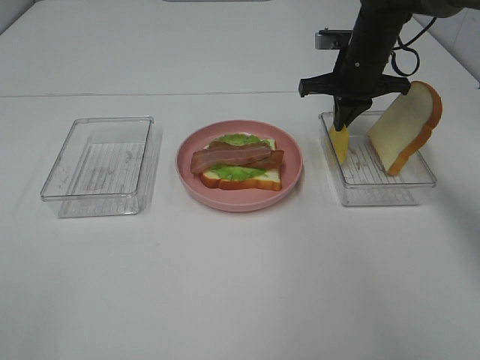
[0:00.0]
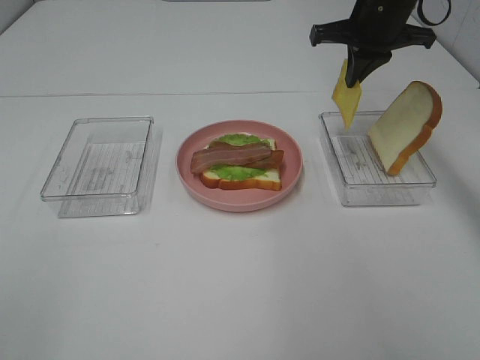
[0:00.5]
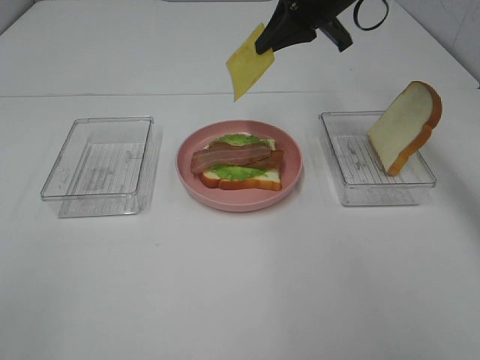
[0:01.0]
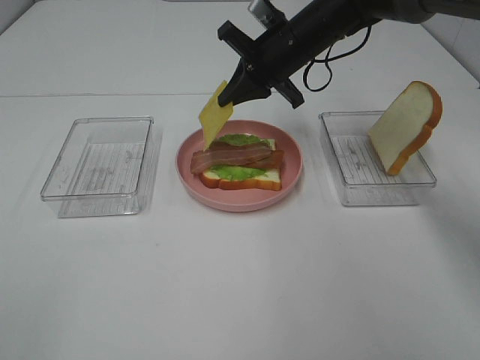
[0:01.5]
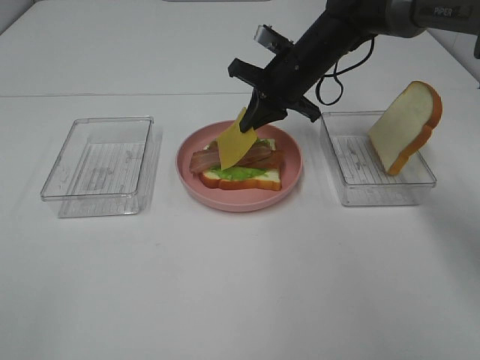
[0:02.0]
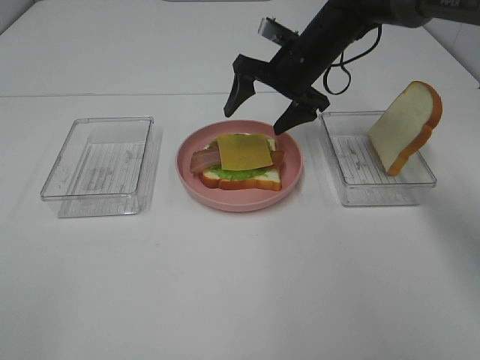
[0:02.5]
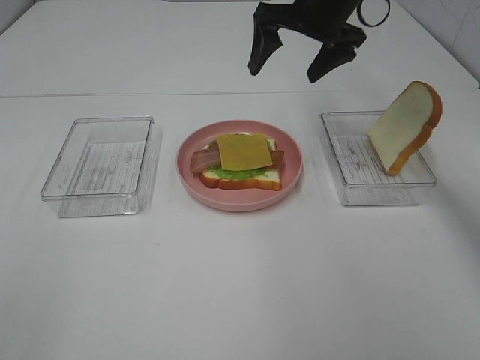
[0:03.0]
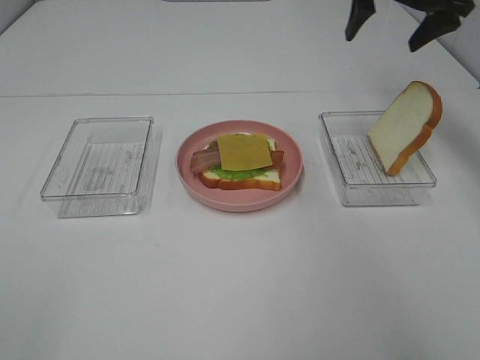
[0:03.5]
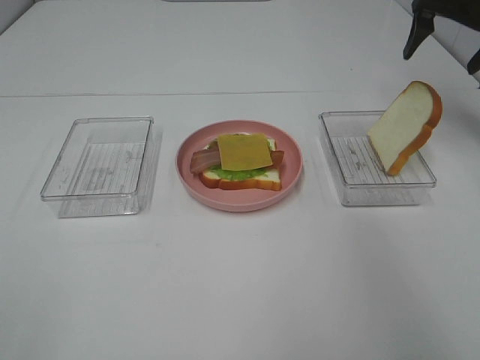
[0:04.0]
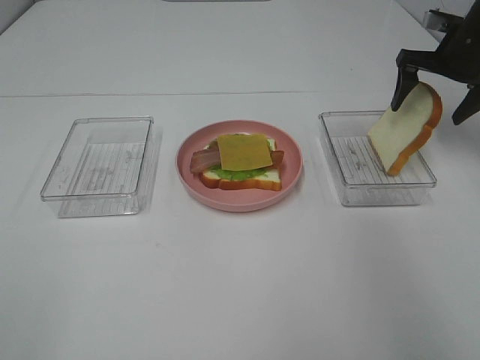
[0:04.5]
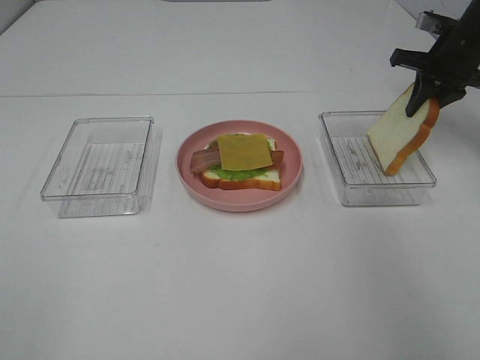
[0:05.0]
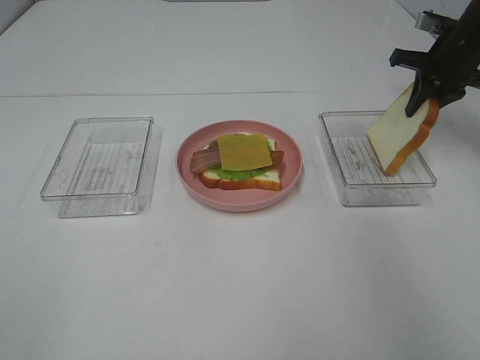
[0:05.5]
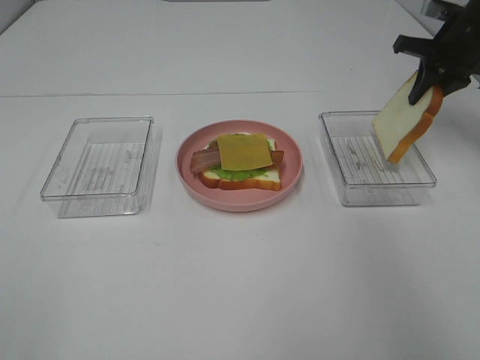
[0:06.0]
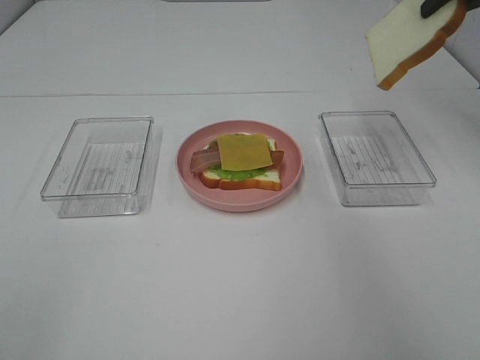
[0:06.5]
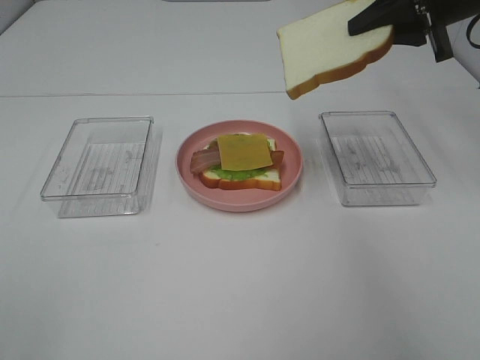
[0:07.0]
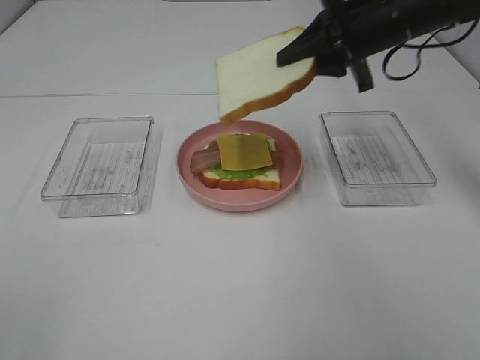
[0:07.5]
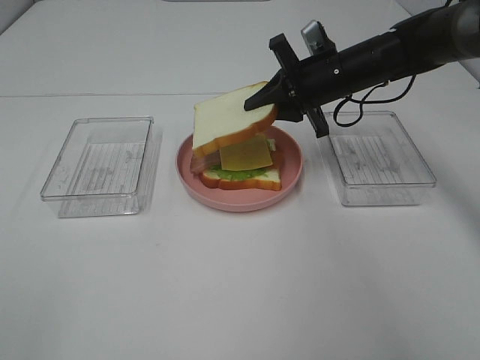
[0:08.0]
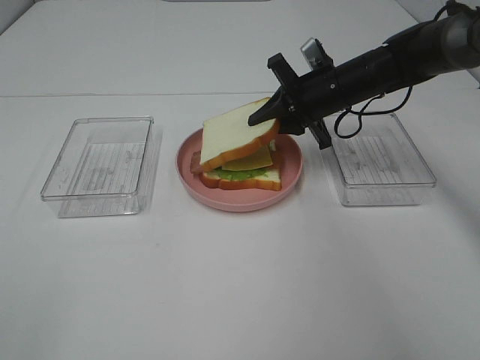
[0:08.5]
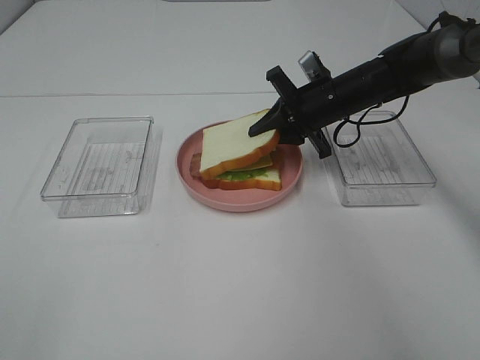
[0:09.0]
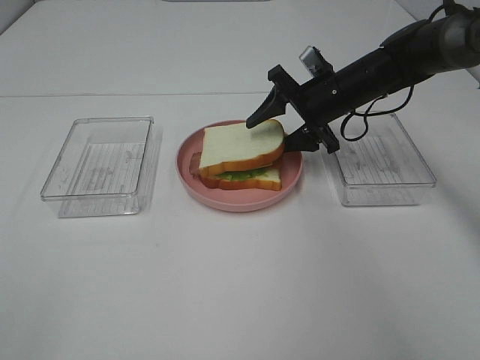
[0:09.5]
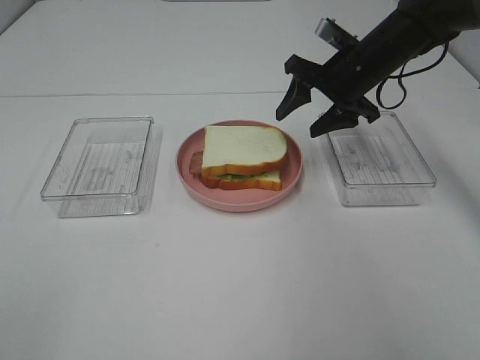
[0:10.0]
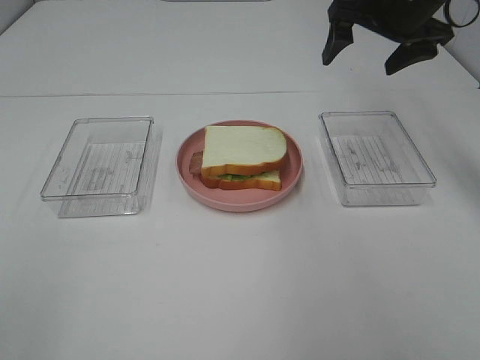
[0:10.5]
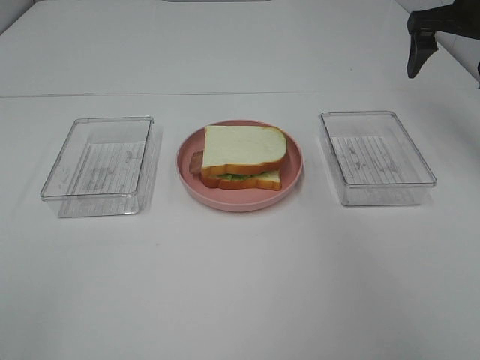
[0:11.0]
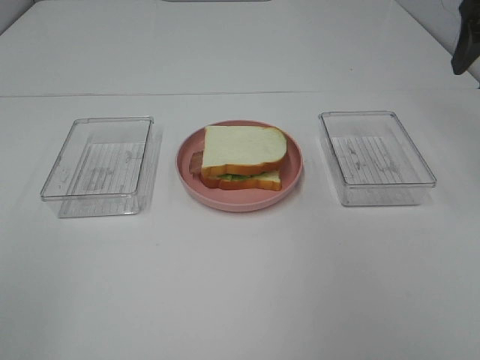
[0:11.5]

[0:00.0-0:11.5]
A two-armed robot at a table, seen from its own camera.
Task of the whole recording: Make sandwiches.
Step, 0:00.0 to 0:02.5: Right hand:place the cheese slice on top of the bacon.
Step, 0:03.0 to 0:05.5: Right hand:grab the bread slice.
Step, 0:06.0 to 0:09.5: Right hand:place the bread slice on the cheese slice.
0:00.0 to 0:02.0: The right gripper is displaced to the left by about 10 cm, and goes upward and returns, approximately 10 cm each way.
0:02.0 to 0:04.0: The right gripper is displaced to the right and upward by about 25 cm, and opens its fingers.
0:04.0 to 0:06.0: The right gripper closes its fingers.
0:06.0 to 0:07.5: The right gripper is displaced to the left and backward by approximately 15 cm.
0:07.5 to 0:09.5: The right gripper travels downward by approximately 10 cm, and opens up.
0:09.5 to 0:11.5: The right gripper shifts some 30 cm upward, to the right and backward.

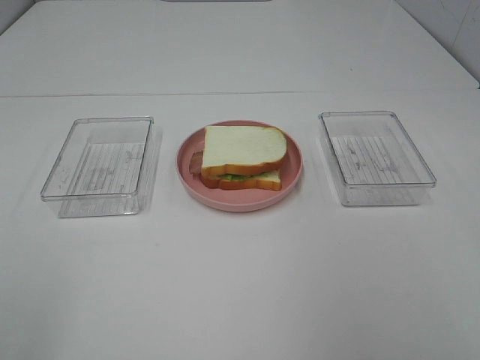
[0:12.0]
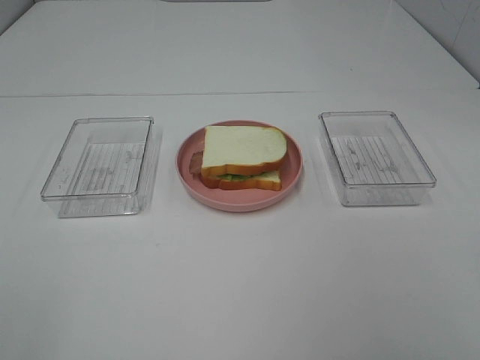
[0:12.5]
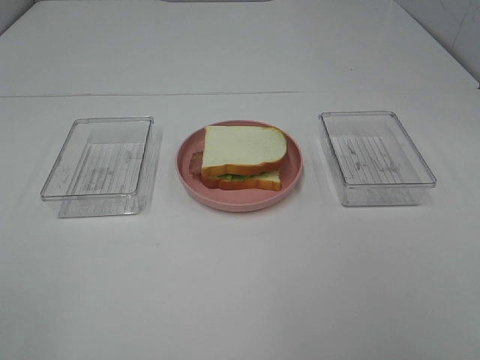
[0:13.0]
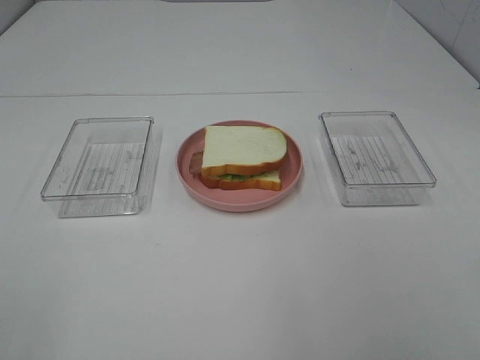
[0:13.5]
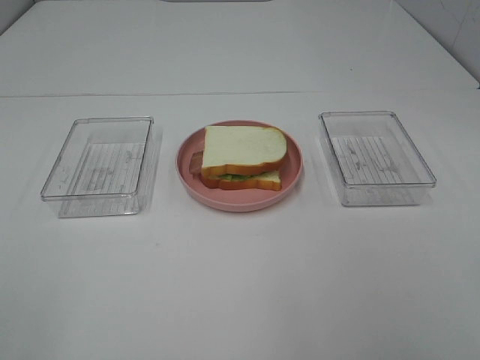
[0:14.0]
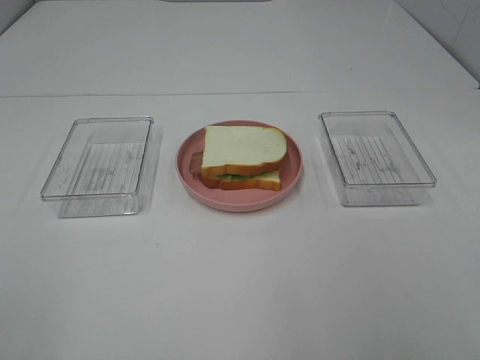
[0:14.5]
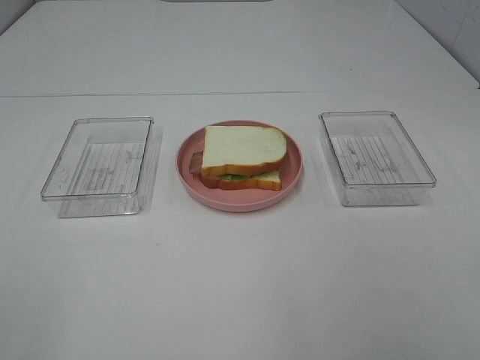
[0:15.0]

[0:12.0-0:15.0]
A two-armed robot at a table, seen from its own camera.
Task of the whole recording: Make sandwiches.
0:13.5 to 0:15.0: Both grippers stay about where they are.

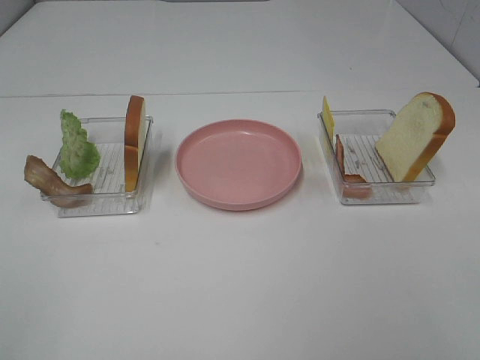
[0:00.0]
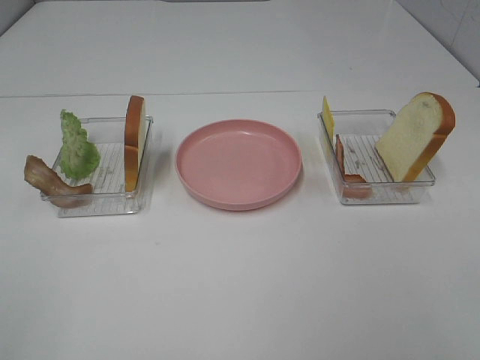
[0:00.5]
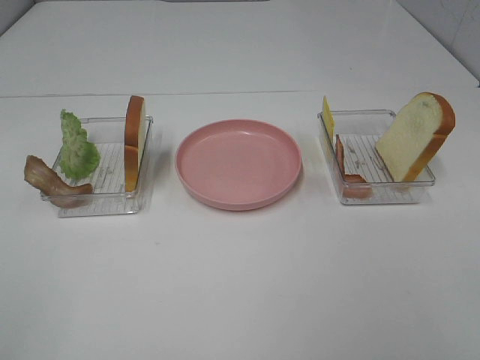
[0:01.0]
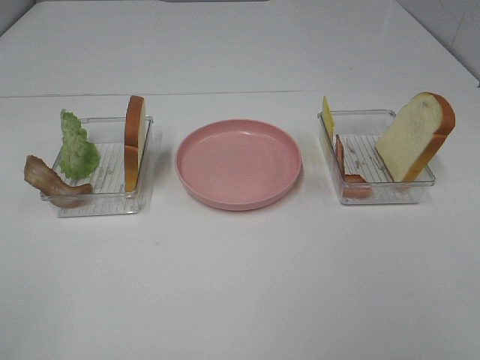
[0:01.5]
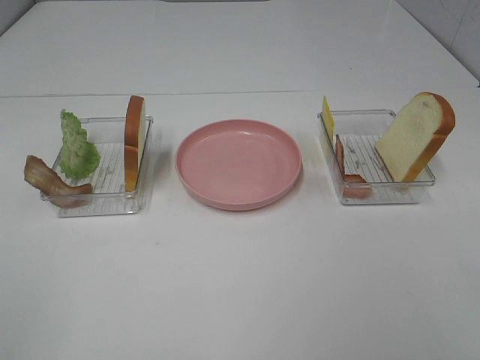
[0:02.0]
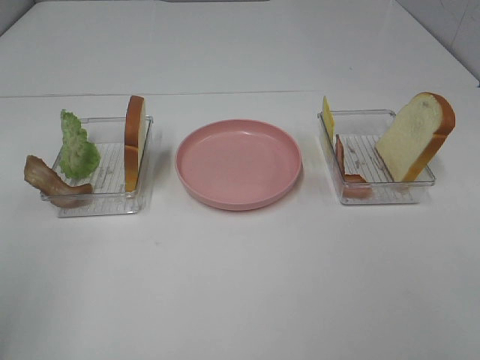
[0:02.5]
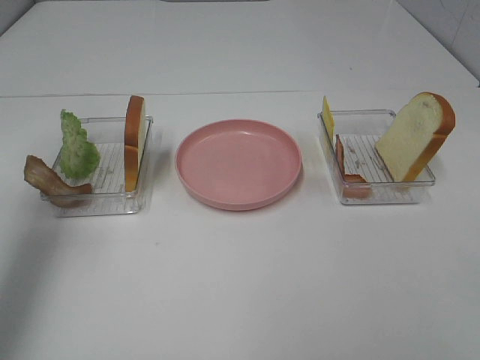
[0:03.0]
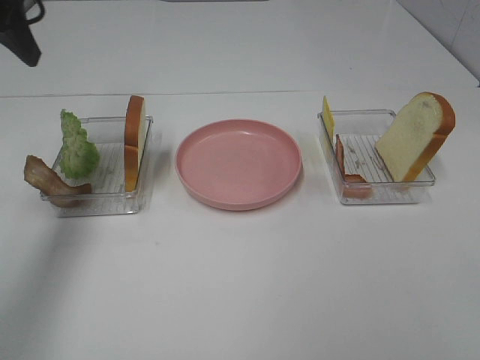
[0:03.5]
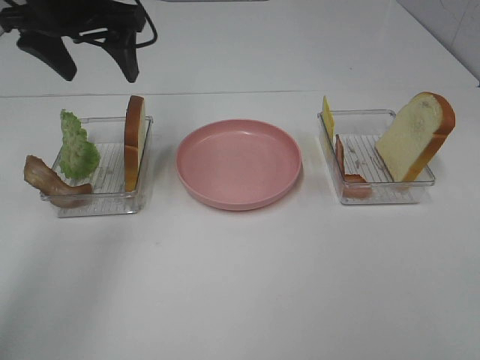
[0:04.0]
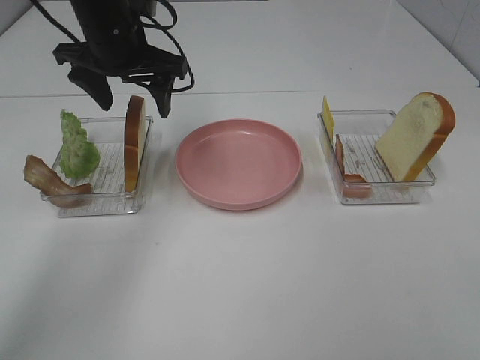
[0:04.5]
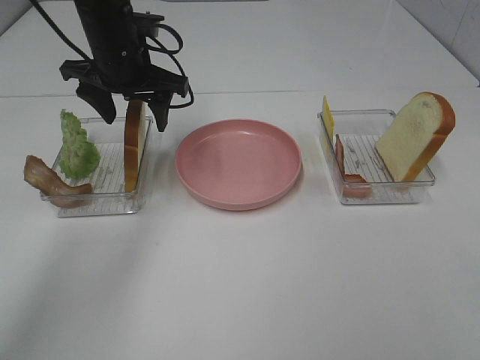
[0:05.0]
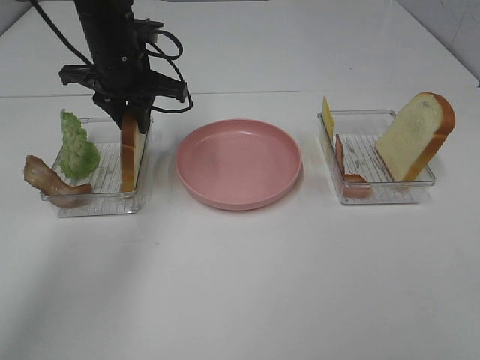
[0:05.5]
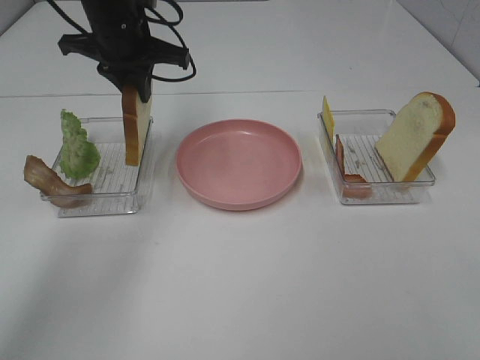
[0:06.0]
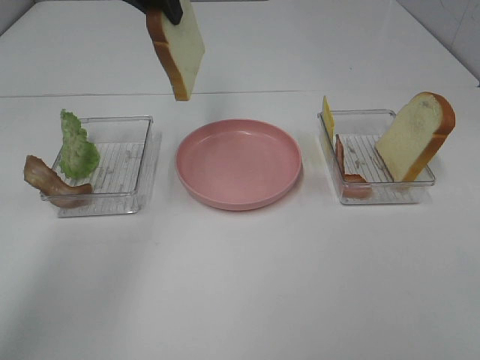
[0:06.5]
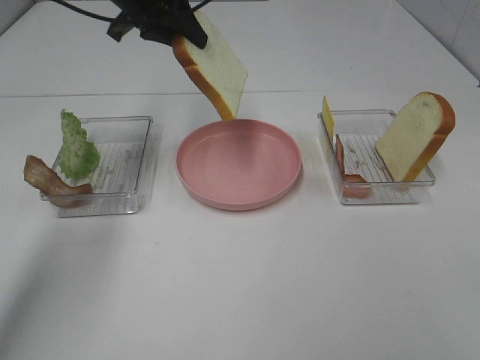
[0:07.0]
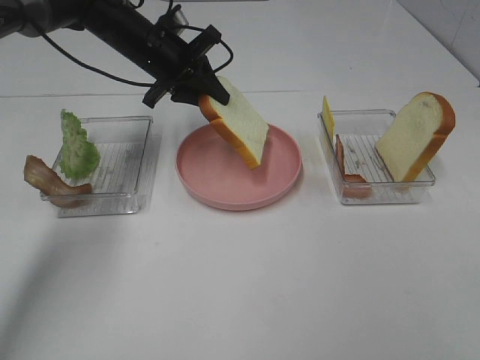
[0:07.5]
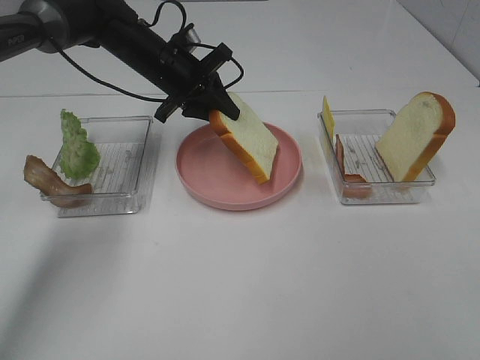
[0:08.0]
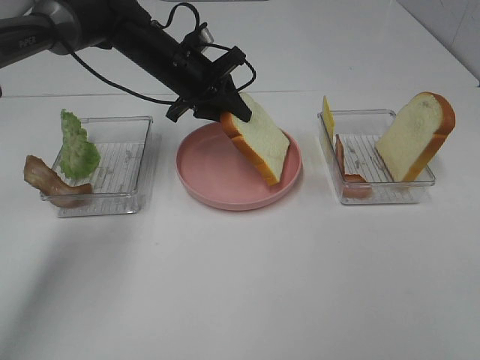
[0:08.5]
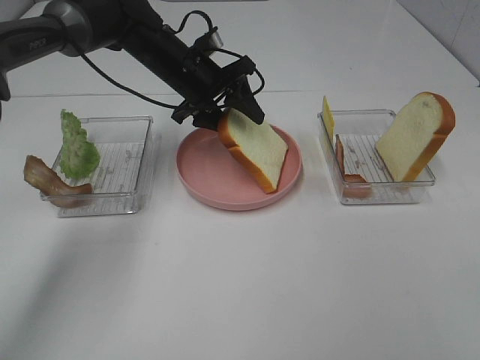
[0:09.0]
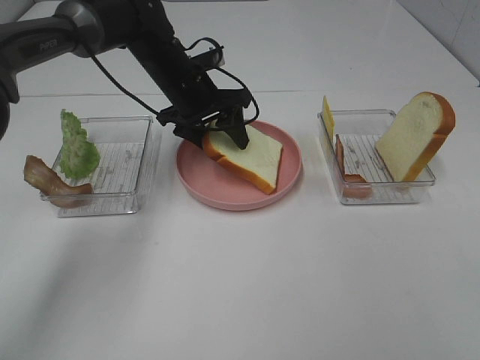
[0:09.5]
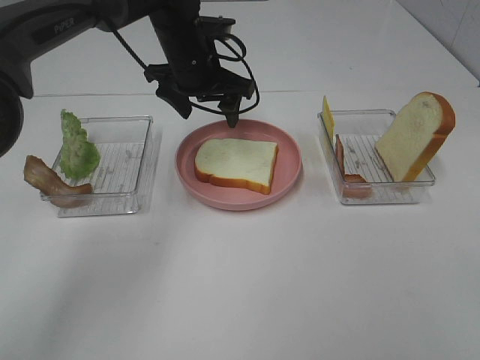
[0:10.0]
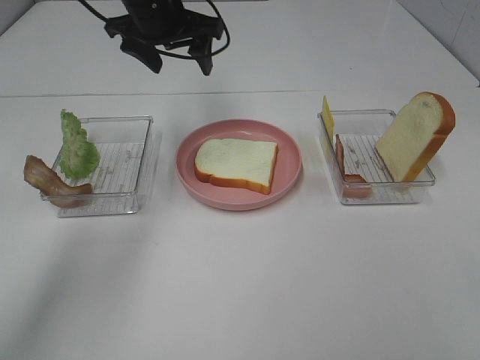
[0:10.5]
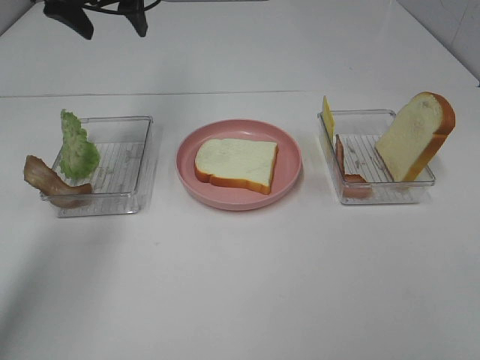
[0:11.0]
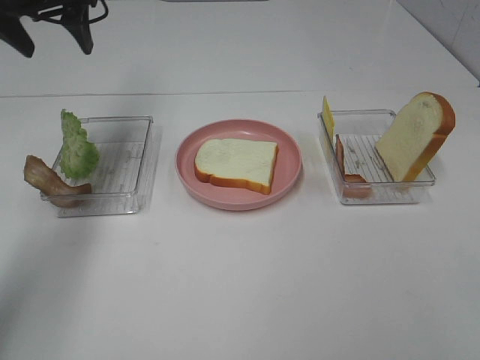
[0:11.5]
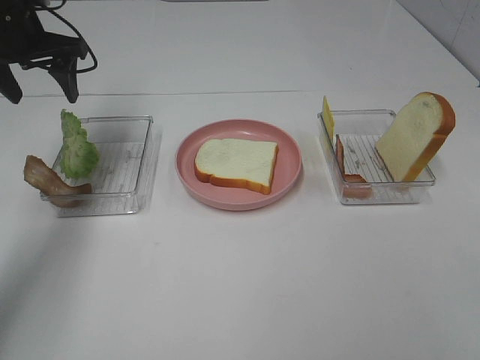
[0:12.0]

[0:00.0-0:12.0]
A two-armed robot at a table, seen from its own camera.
Task of the whole recording: Make sandwiches.
Step, 0:00.0 to 0:05.5: Left hand:grab the bread slice.
Step, 0:06.0 to 0:10.0: Left hand:place the bread slice on the plate.
0:00.0 to 0:02.0: Neither gripper changes place.
0:02.0 to 0:04.0: The left gripper is displaced forward by some 40 cm.
0:04.0 to 0:06.0: The left gripper moves roughly 5 cm, and closes up.
0:06.0 to 0:08.0: The left gripper is displaced downward by about 10 cm.
0:08.0 to 0:10.0: The left gripper shifts by some 5 cm, and opens its fingers.
0:10.0 to 0:12.0: The left gripper goes approximately 20 cm to the left.
